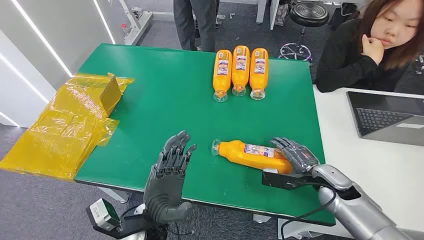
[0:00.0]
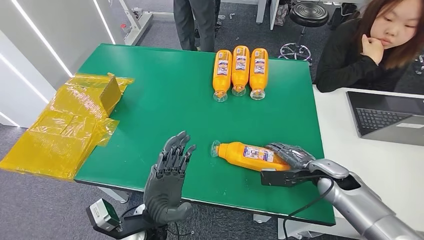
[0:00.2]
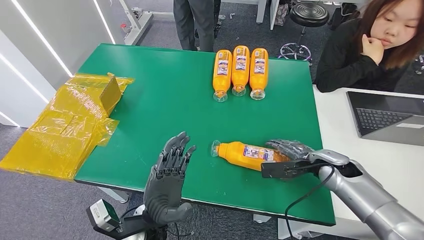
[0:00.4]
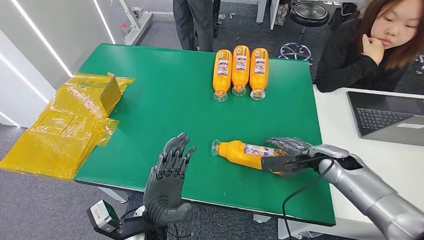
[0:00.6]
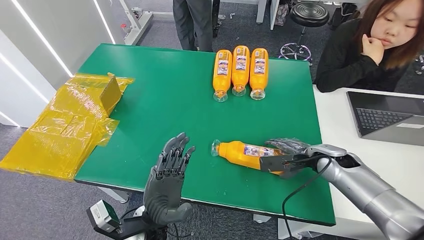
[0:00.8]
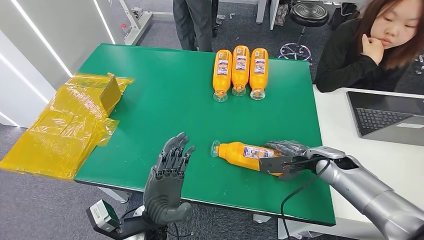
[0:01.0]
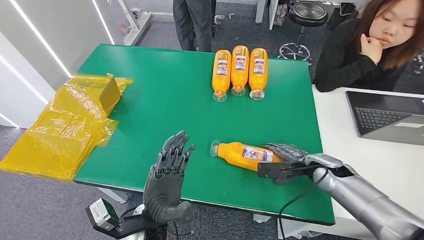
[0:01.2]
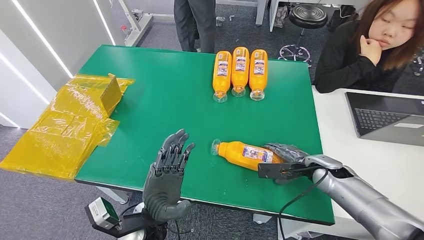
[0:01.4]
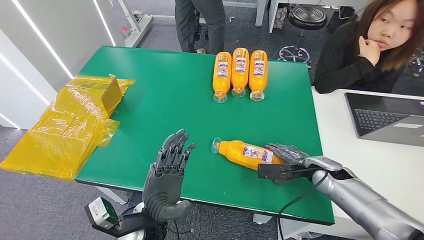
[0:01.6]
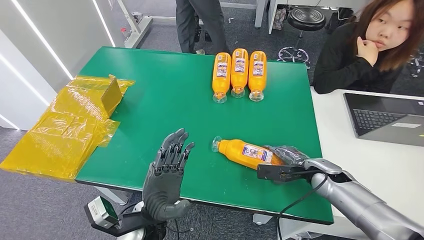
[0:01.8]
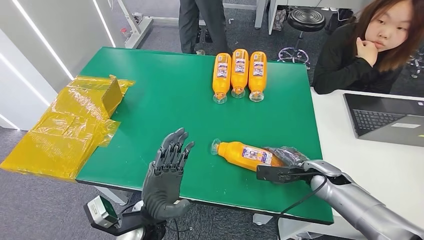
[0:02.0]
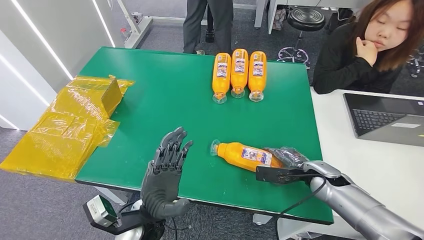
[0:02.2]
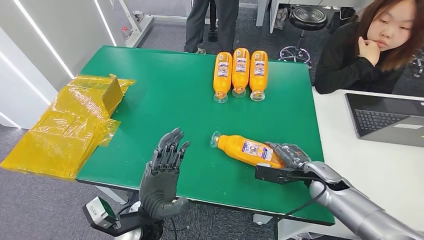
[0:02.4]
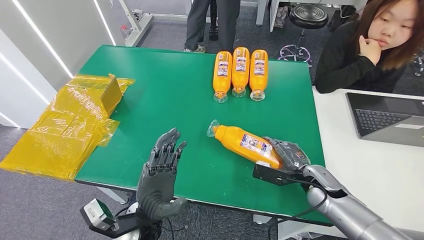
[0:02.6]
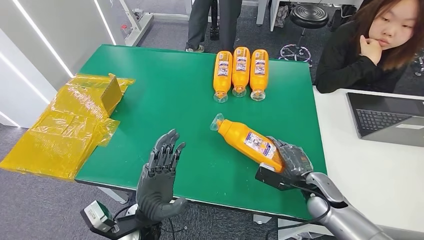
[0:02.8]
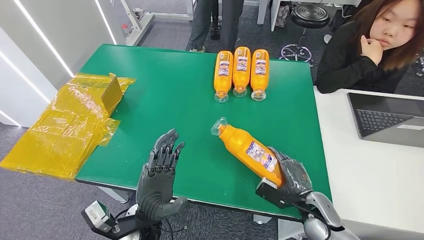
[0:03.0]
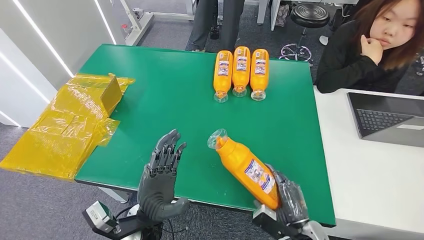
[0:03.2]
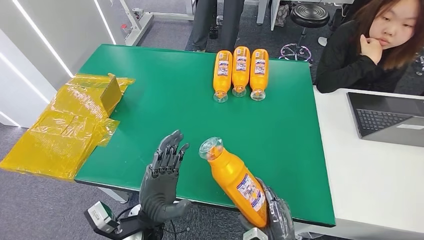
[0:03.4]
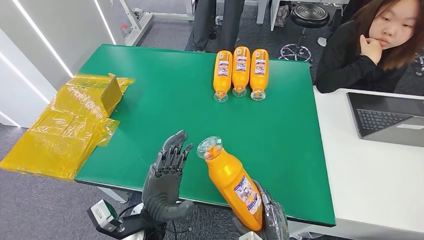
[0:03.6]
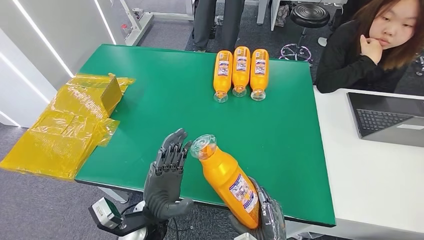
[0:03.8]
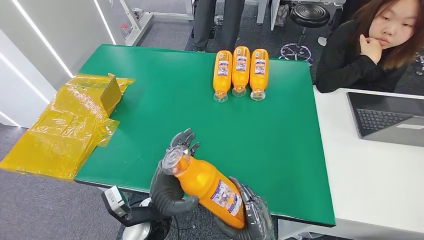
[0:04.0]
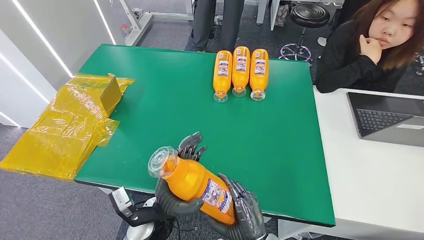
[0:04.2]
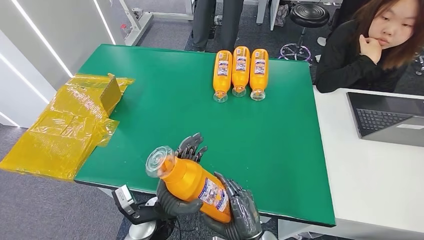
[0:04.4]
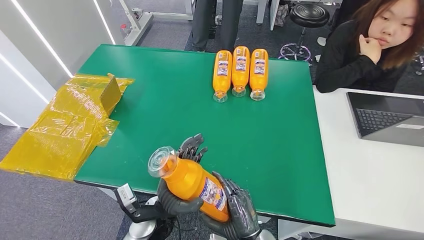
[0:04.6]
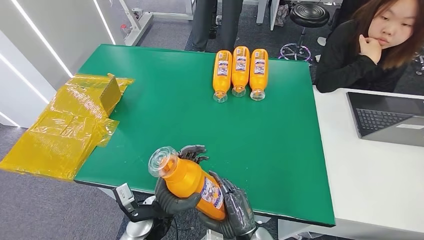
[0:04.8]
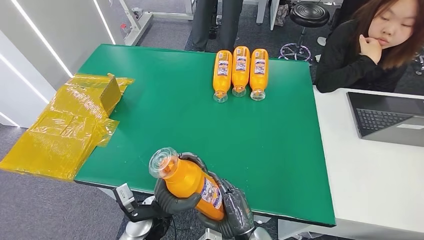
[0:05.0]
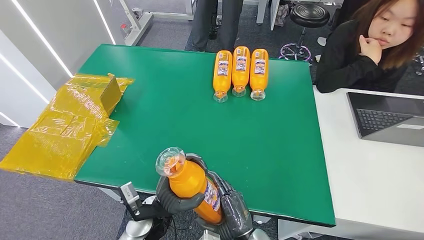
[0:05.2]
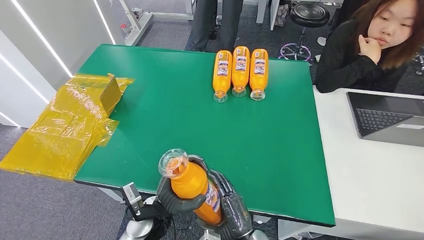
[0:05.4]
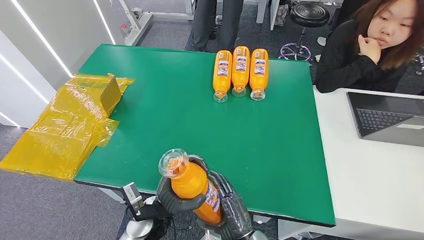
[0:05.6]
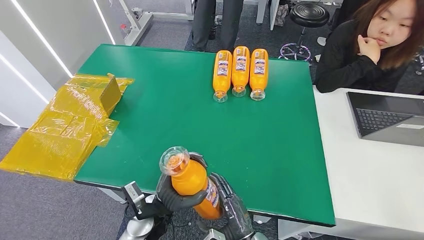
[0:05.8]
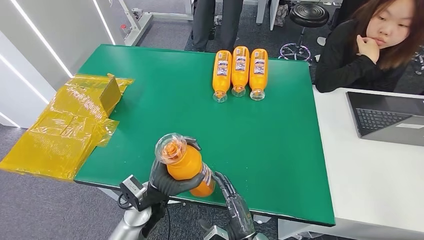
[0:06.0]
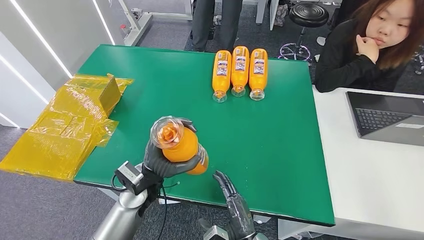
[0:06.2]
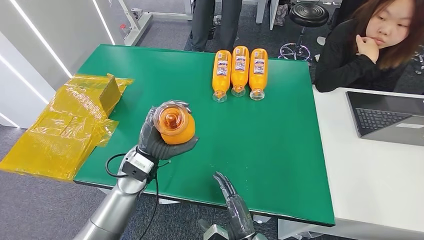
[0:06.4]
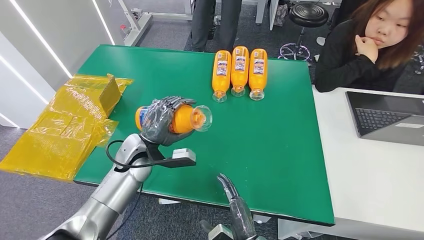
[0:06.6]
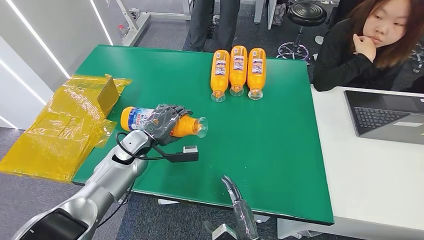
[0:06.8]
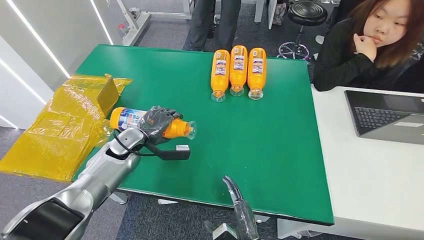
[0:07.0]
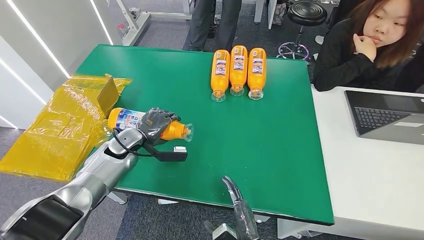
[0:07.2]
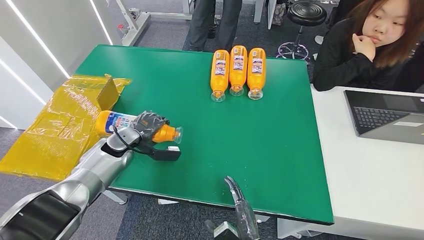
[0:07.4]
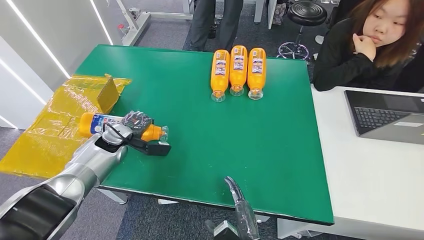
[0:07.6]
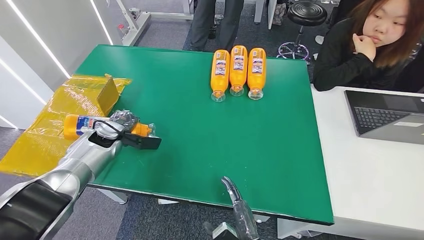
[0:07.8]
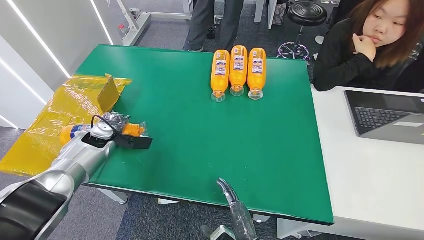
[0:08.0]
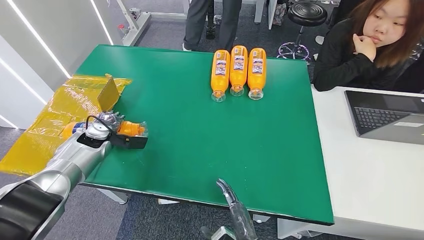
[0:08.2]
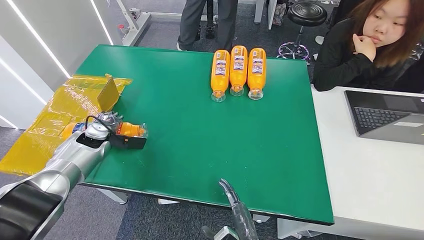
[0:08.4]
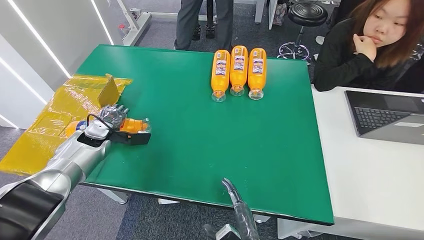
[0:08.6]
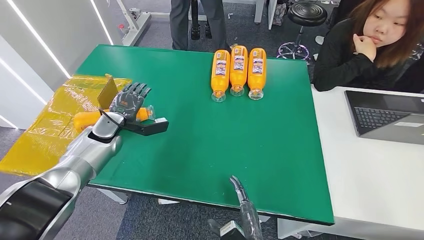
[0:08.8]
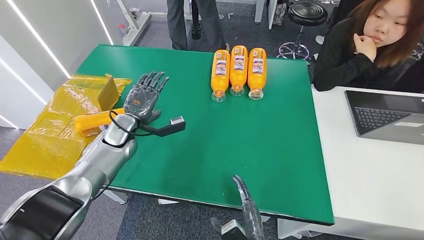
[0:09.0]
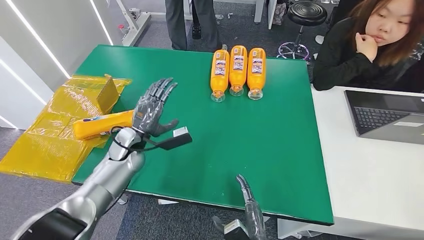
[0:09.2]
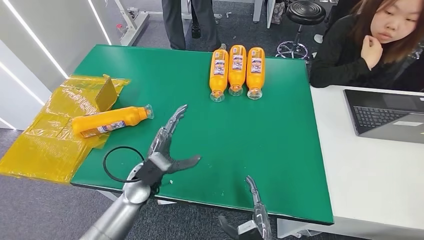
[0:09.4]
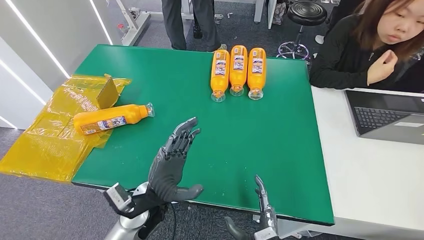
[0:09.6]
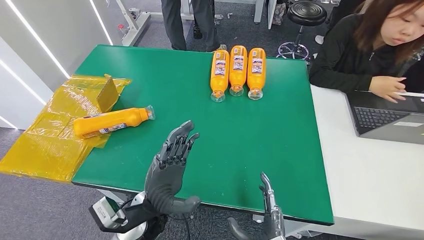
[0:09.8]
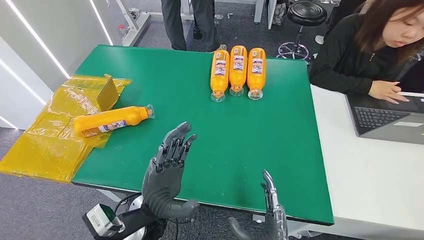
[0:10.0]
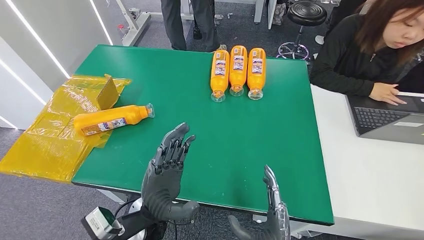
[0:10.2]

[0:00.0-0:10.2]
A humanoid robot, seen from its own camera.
Step, 0:00.0 to 0:04.2: Pick up the bottle from the table.
Step, 0:04.4 to 0:10.2: Turn the bottle to the front side.
0:01.4 to 0:03.0: The right hand travels backward and downward by about 10 cm.
0:03.0 to 0:04.4: The right hand goes approximately 20 cm to the left and backward.
0:04.4 to 0:05.8: There are only small adjustments of the hands.
0:07.2 to 0:08.8: The left hand shifts about 5 cm to the left.
0:08.8 to 0:10.2: The right hand shifts about 5 cm upward, while the left hand travels to the right and backward by roughly 30 cm.
